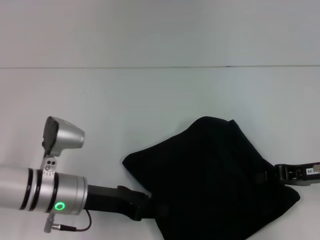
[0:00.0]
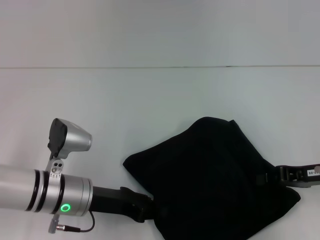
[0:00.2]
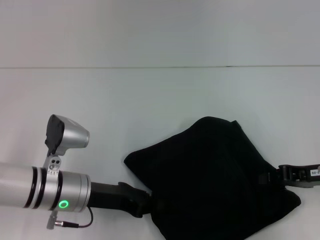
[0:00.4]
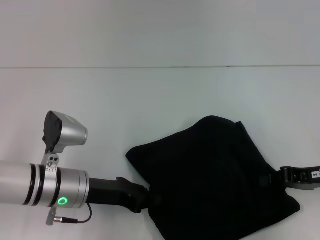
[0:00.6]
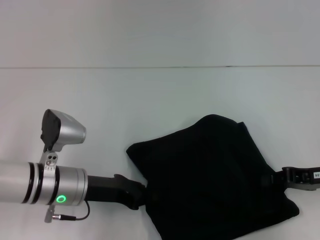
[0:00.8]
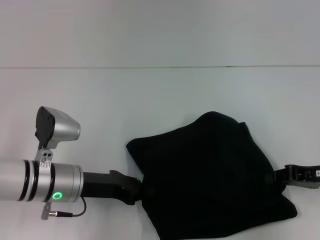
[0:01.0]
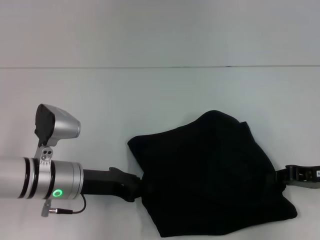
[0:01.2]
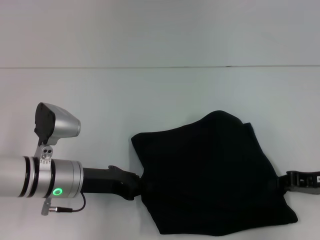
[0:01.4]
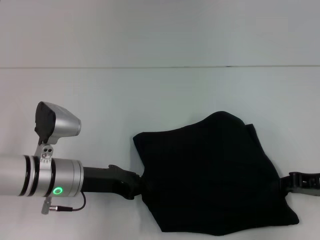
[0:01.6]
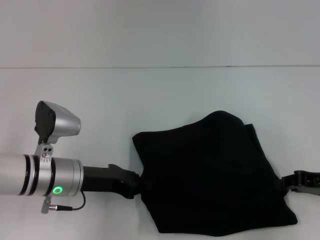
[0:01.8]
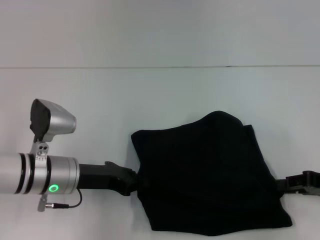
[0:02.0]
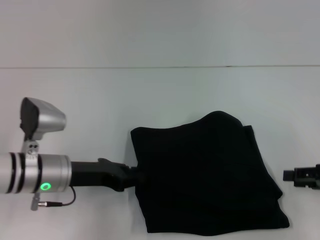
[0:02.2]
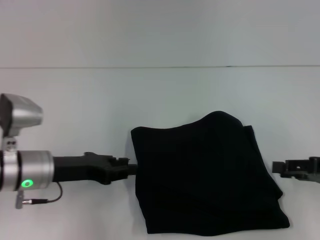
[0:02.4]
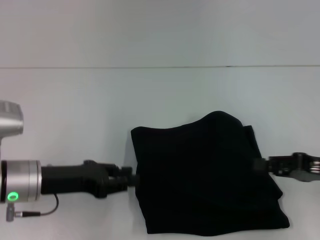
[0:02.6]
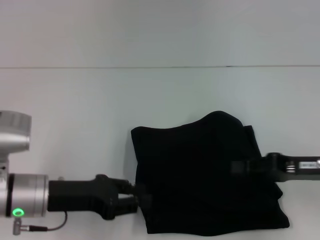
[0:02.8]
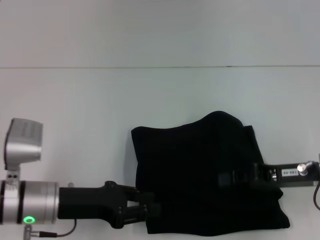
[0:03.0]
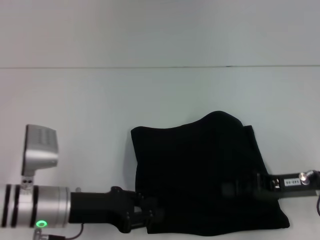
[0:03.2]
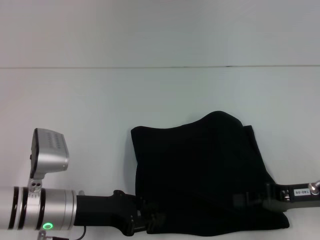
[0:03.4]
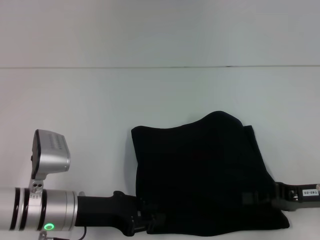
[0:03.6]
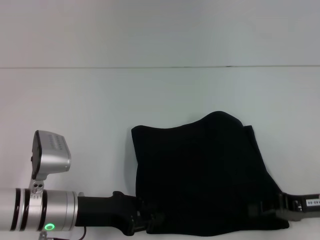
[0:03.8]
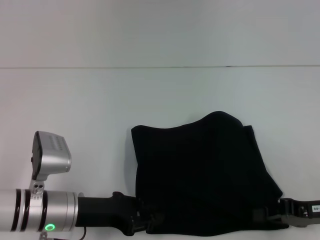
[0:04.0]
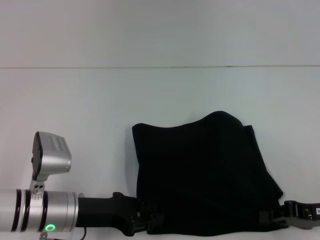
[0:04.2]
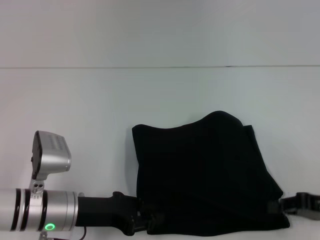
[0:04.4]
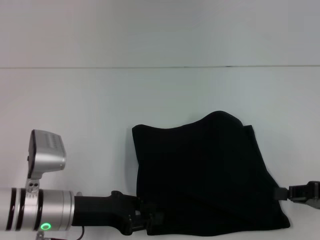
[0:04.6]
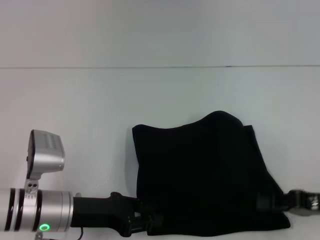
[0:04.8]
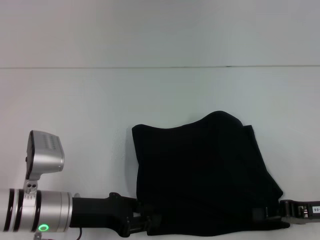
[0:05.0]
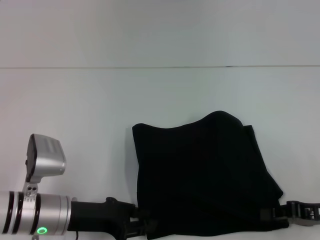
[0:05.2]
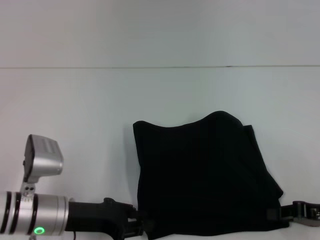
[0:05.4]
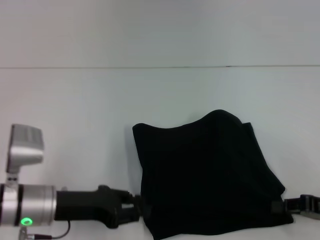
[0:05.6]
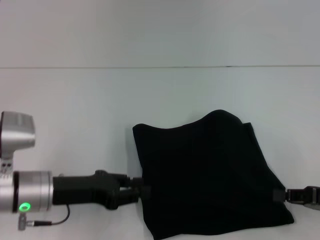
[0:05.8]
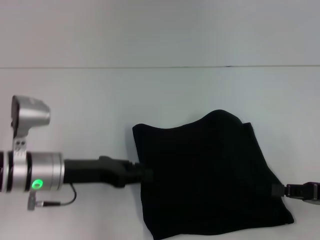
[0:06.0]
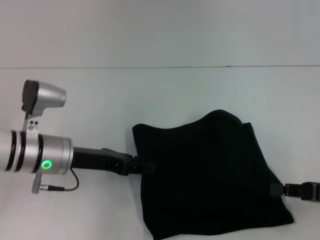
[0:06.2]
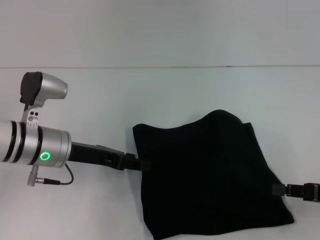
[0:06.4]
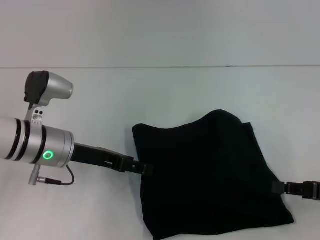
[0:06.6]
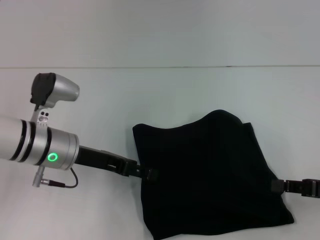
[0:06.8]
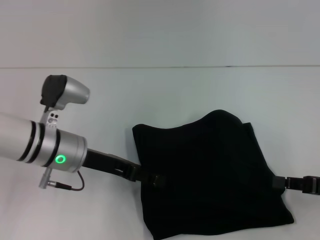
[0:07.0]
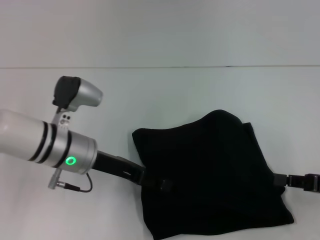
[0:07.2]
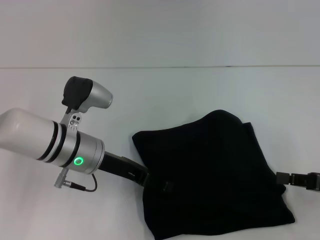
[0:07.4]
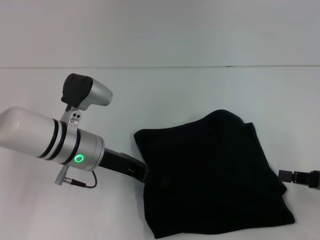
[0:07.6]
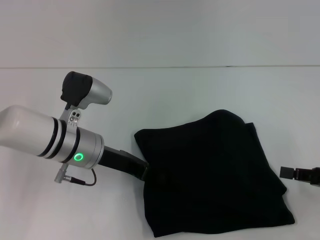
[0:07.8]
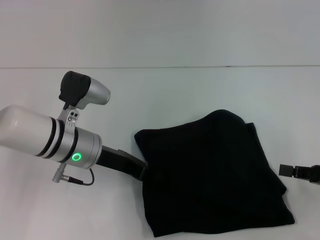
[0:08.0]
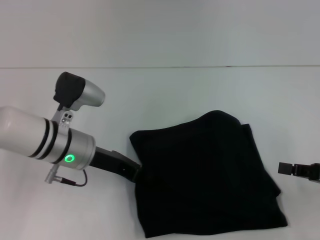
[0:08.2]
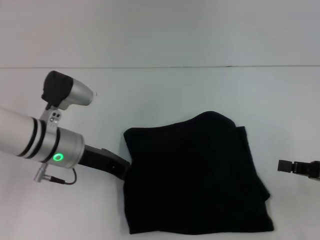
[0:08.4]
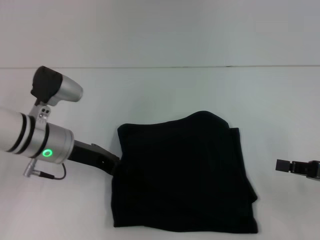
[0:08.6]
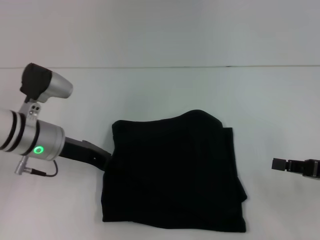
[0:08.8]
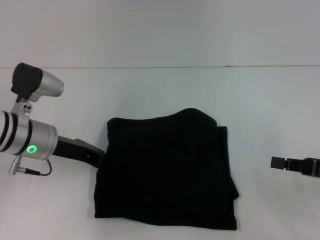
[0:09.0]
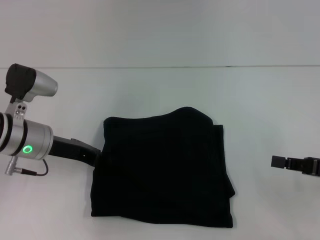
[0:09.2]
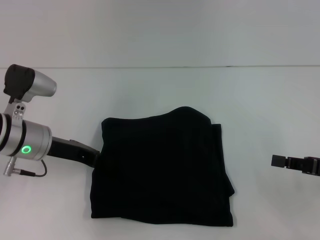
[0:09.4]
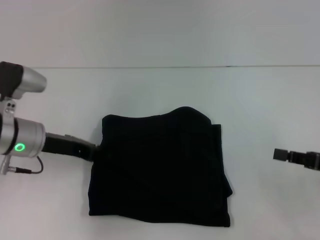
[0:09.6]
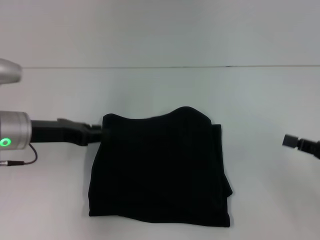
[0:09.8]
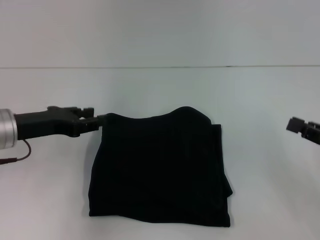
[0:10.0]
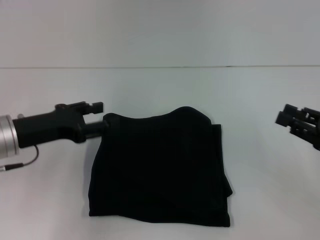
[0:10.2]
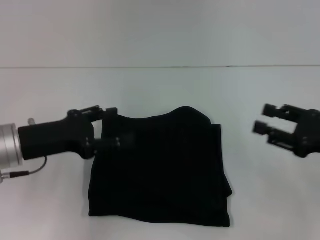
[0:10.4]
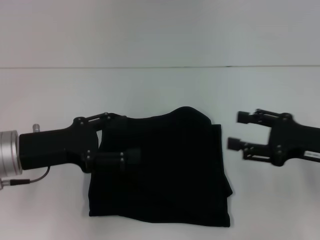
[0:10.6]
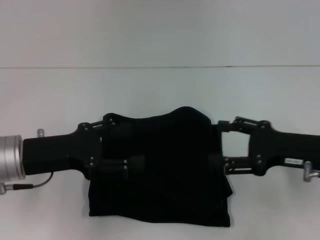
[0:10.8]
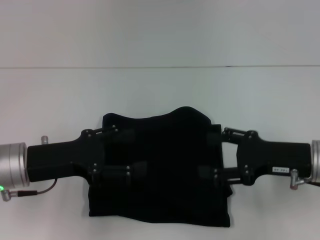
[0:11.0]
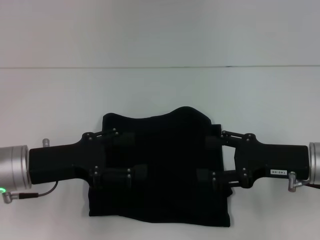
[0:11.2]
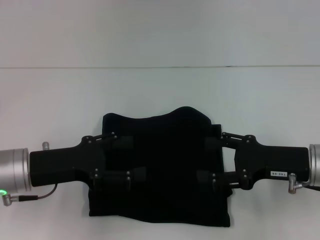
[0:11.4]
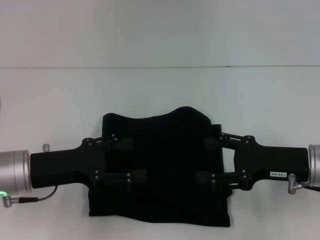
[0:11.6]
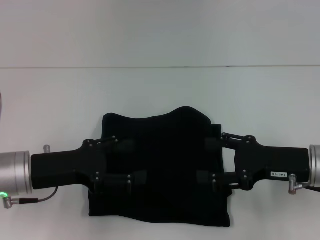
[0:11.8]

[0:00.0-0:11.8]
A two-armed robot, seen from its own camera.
0:00.0 to 0:01.4: The left gripper closes.
0:01.4 to 0:03.0: The right gripper opens, then closes once more.
0:03.0 to 0:04.4: The right gripper goes some 5 cm to the right.
0:04.4 to 0:06.0: The left gripper moves some 5 cm.
0:06.0 to 0:07.4: The left gripper shifts approximately 5 cm to the right, and opens.
0:07.4 to 0:08.8: The left gripper travels to the left by roughly 5 cm, and closes.
0:08.8 to 0:10.4: The right gripper opens its fingers. Meanwhile the left gripper moves backward, approximately 5 cm, and opens up.
0:10.4 to 0:11.8: The right gripper shifts some 5 cm to the left, and opens.
